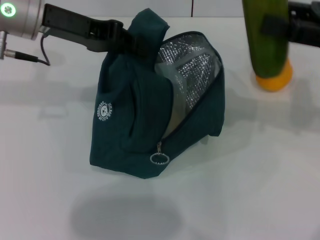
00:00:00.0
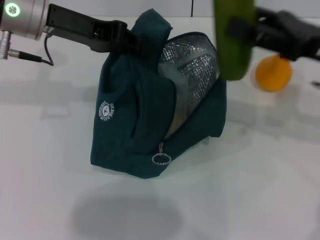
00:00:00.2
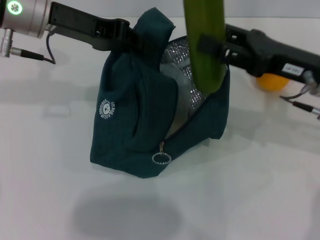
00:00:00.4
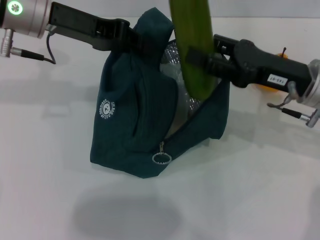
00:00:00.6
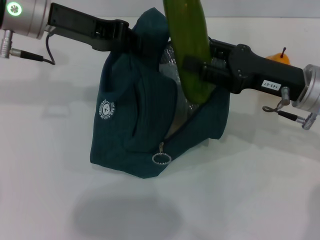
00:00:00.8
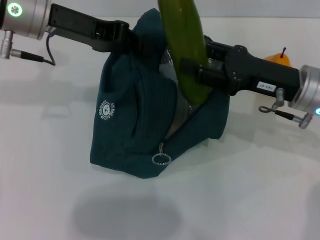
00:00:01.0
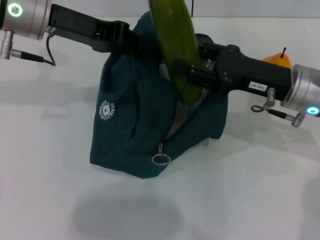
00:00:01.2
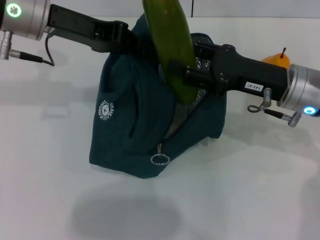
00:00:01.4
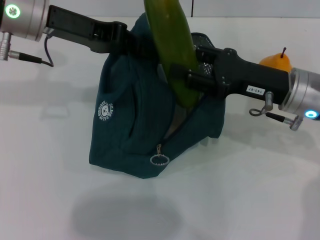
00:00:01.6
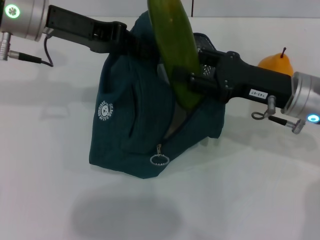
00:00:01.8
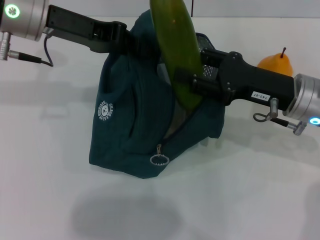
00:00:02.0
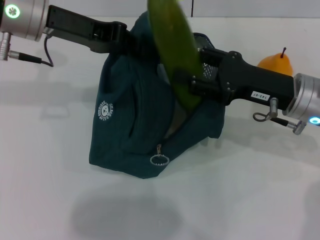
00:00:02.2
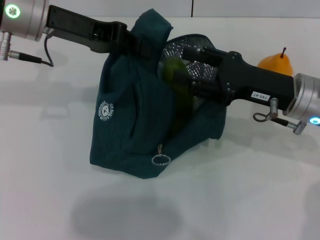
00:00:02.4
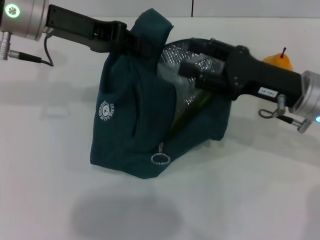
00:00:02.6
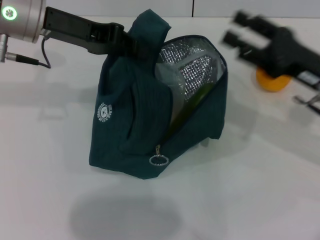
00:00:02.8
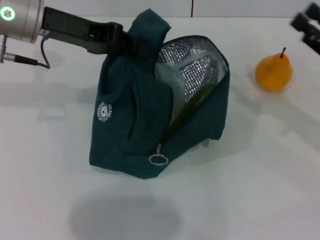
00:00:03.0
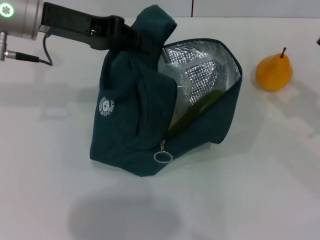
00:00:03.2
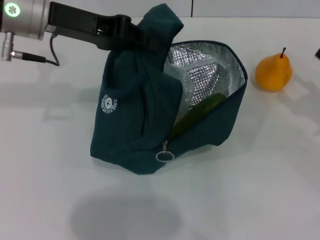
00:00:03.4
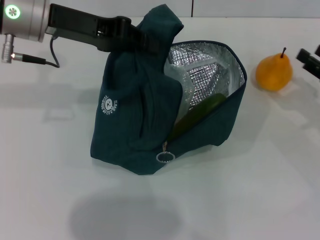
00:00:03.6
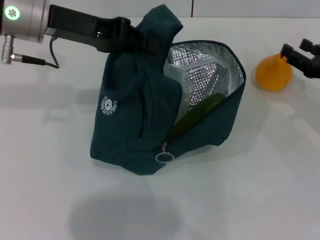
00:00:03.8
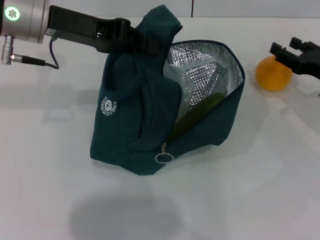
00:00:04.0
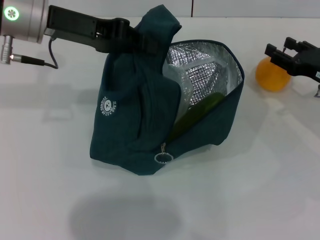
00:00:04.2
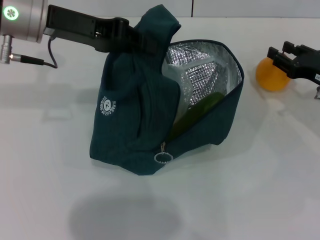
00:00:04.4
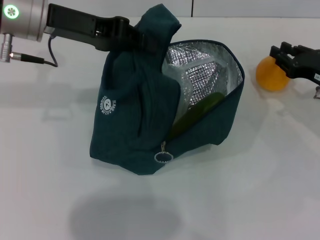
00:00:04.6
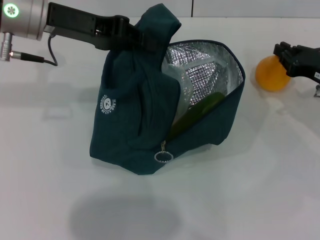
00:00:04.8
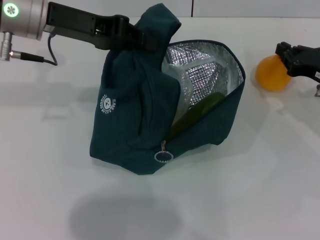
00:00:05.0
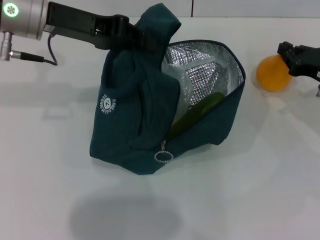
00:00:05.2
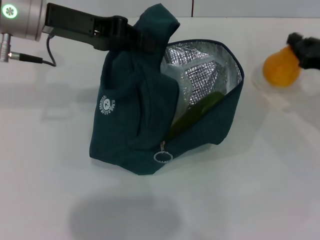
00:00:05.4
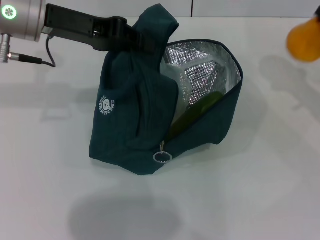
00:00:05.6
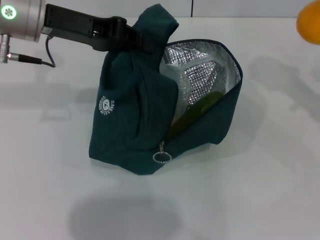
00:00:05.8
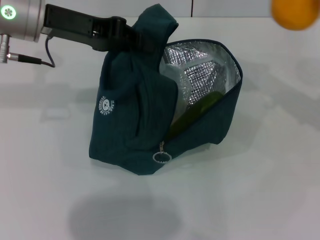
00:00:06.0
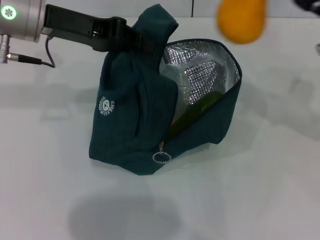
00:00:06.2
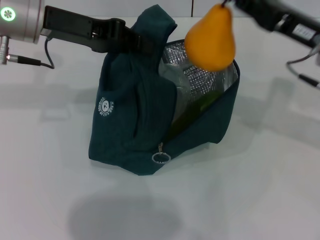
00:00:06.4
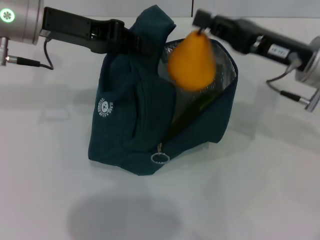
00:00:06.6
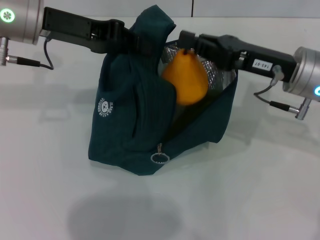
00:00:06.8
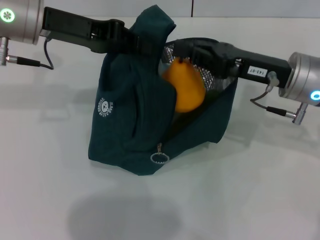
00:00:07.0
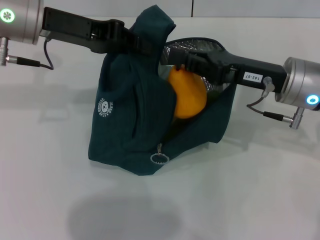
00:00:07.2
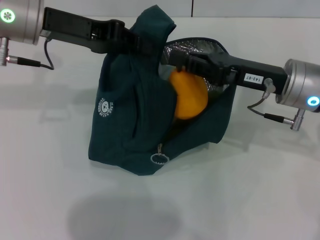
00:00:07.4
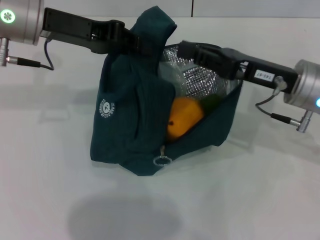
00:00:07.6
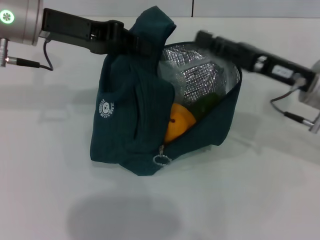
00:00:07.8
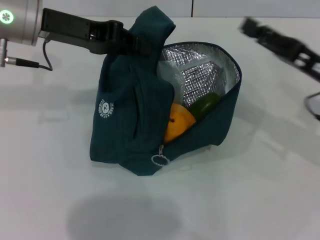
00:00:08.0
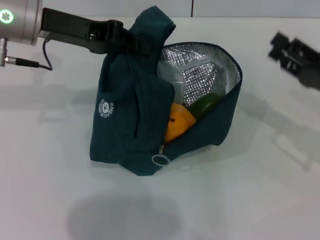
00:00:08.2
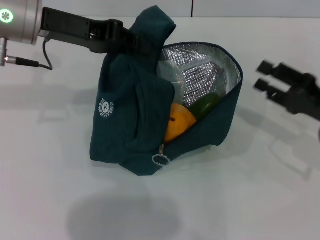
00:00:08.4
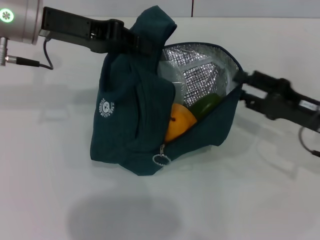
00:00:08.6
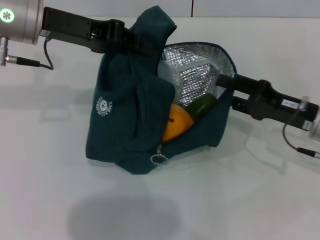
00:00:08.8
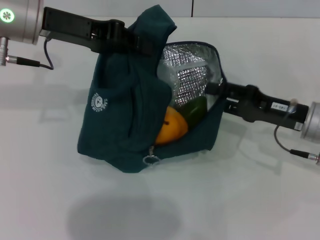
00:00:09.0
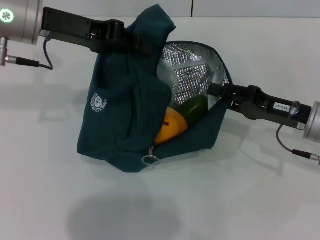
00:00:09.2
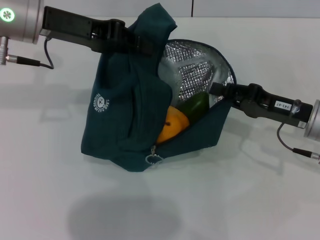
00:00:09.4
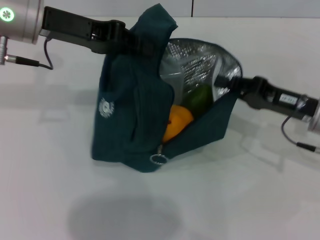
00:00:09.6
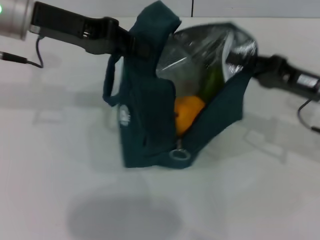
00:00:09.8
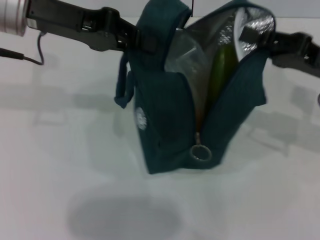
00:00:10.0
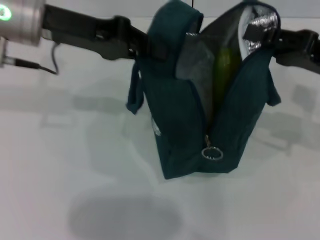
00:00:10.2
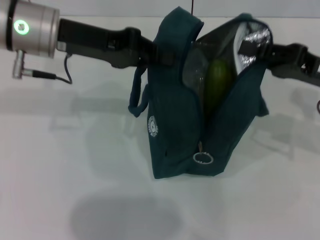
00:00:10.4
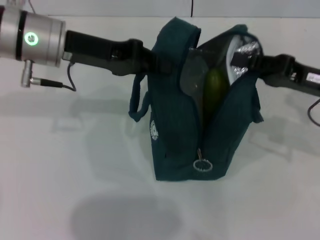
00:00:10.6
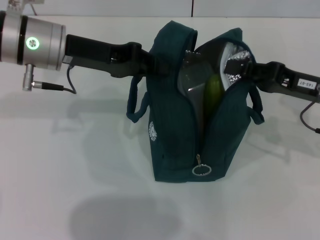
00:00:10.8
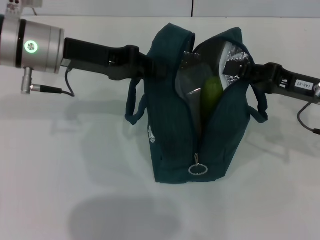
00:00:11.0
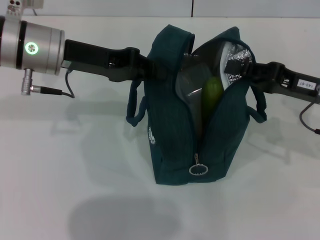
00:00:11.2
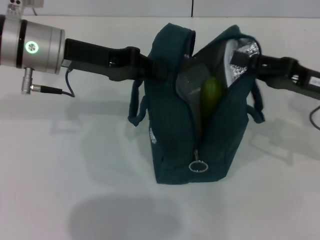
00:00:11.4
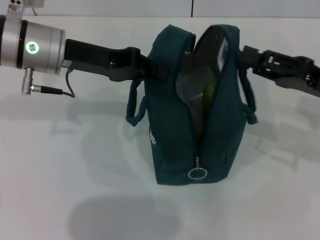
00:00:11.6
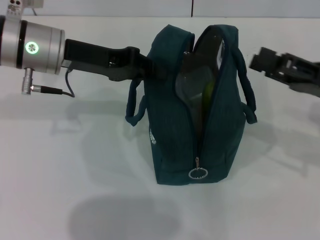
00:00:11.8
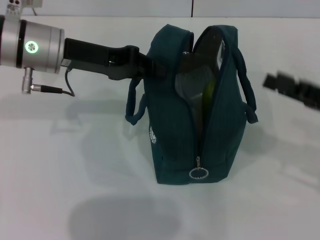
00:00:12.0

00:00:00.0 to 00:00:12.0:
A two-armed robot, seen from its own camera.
Step, 00:00:00.0 to 00:00:02.4: Put the cucumber into the lunch bag with your right hand.
Step, 00:00:02.8 to 00:00:04.8: Grab the pear with your right hand.
Step, 00:00:08.0 to 00:00:11.4: Hold the lunch bag with your right hand.
00:00:00.0 to 00:00:01.6: The right gripper heads to the left and downward, covering about 15 cm.
00:00:01.6 to 00:00:03.0: The right gripper heads to the right, covering about 10 cm.
00:00:03.0 to 00:00:04.4: The right gripper shifts roughly 5 cm forward.
00:00:04.4 to 00:00:06.0: The right gripper shifts approximately 10 cm upward, and closes its fingers.
00:00:06.0 to 00:00:07.6: The right gripper moves to the left, approximately 10 cm.
00:00:07.6 to 00:00:09.0: The right gripper moves downward, some 5 cm, and opens up.
00:00:09.0 to 00:00:10.4: The right gripper is displaced upward by roughly 5 cm, and closes up.
00:00:10.4 to 00:00:12.0: The right gripper heads backward, covering some 5 cm, and opens.

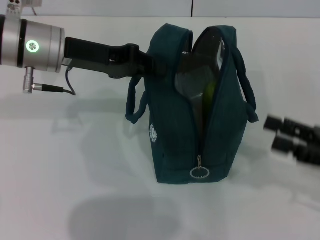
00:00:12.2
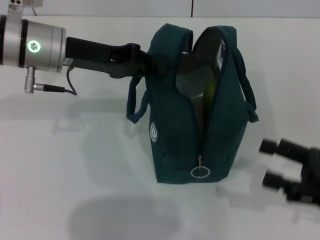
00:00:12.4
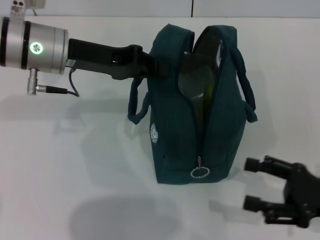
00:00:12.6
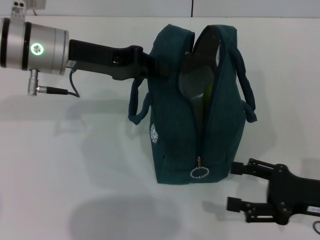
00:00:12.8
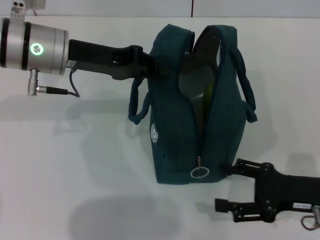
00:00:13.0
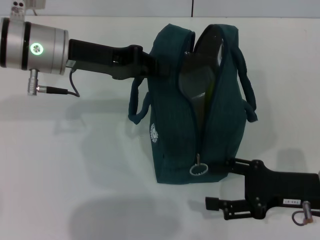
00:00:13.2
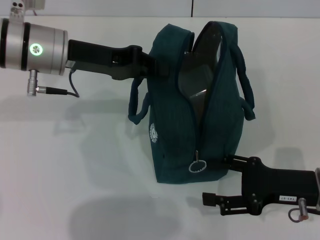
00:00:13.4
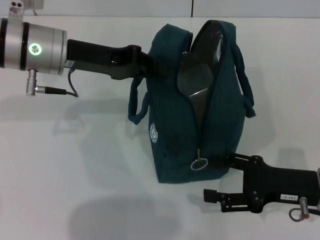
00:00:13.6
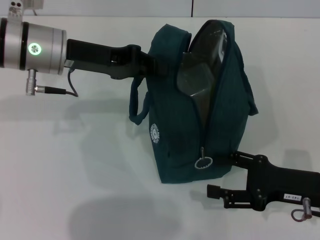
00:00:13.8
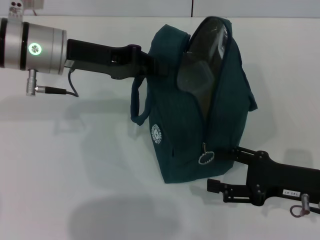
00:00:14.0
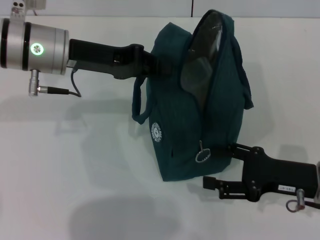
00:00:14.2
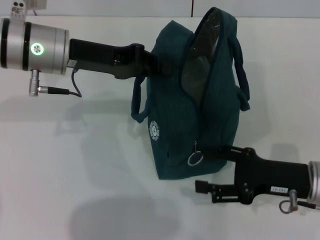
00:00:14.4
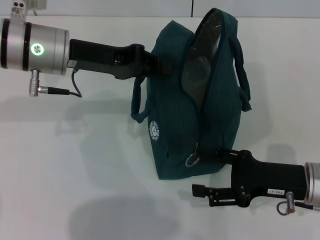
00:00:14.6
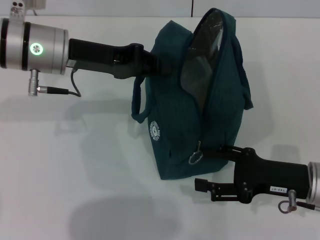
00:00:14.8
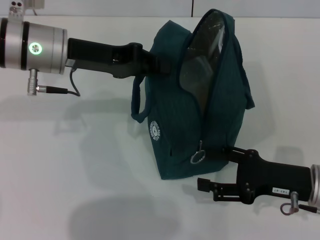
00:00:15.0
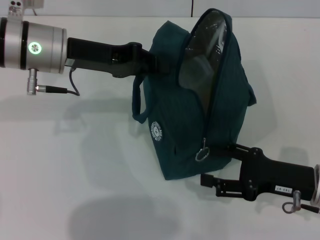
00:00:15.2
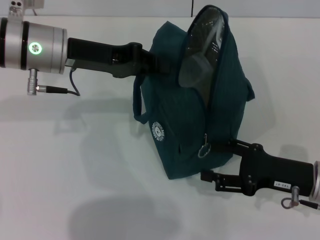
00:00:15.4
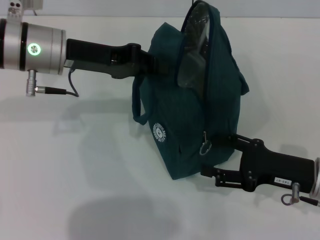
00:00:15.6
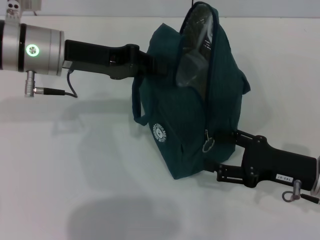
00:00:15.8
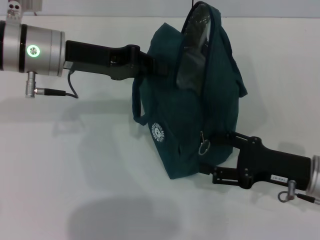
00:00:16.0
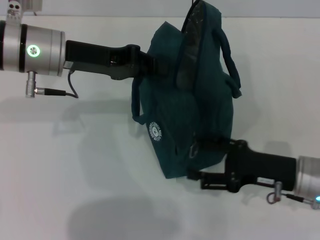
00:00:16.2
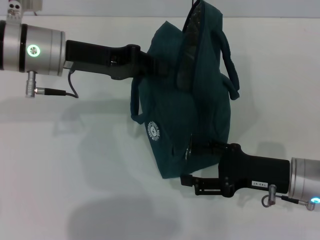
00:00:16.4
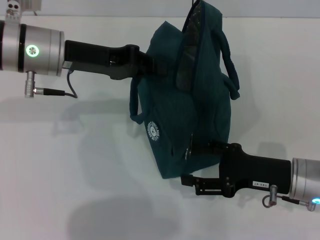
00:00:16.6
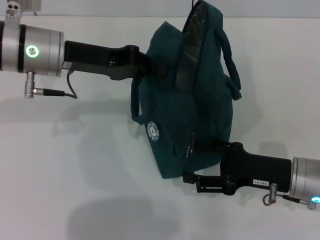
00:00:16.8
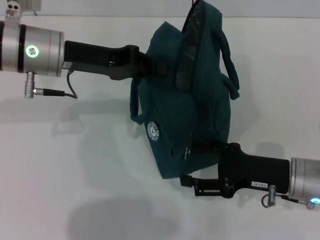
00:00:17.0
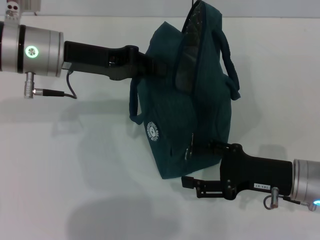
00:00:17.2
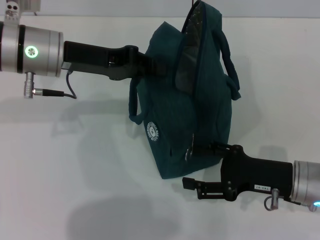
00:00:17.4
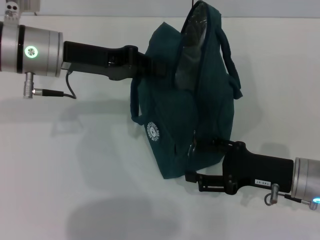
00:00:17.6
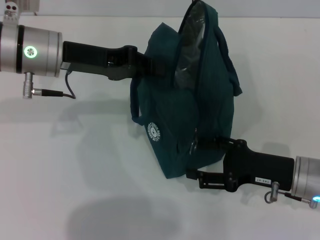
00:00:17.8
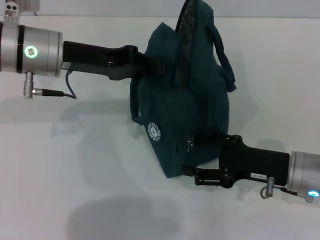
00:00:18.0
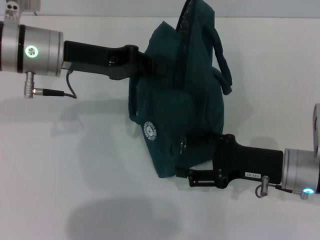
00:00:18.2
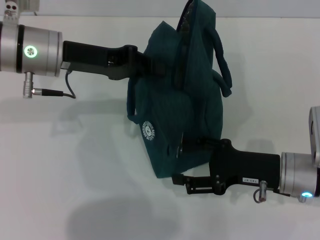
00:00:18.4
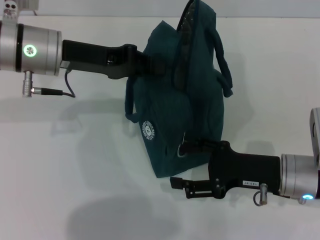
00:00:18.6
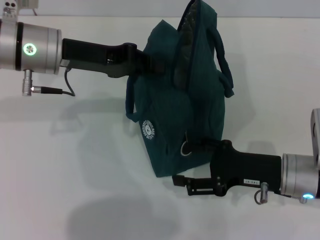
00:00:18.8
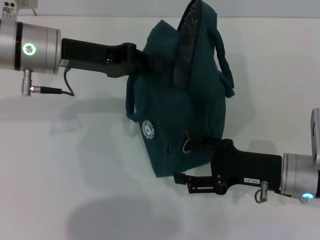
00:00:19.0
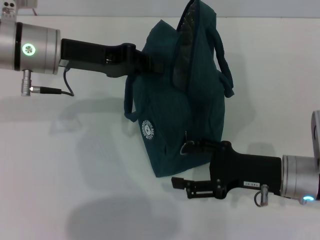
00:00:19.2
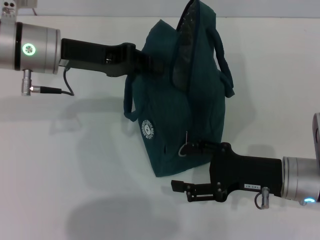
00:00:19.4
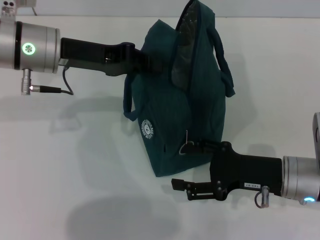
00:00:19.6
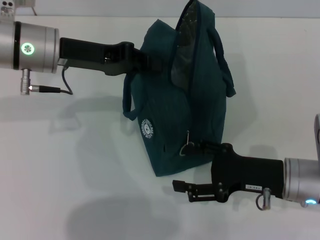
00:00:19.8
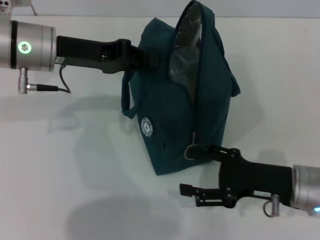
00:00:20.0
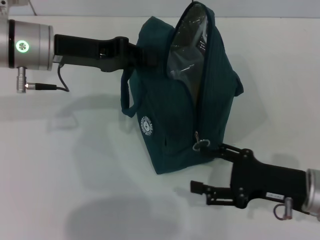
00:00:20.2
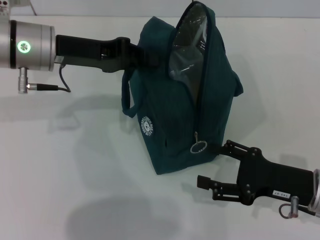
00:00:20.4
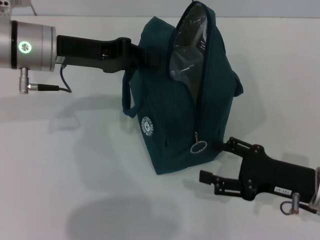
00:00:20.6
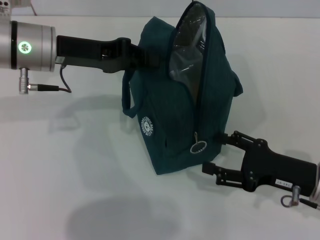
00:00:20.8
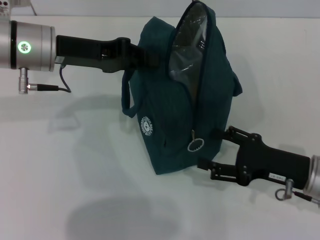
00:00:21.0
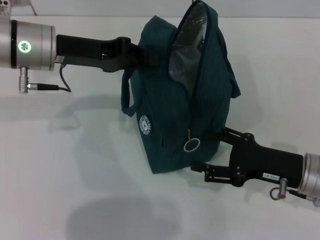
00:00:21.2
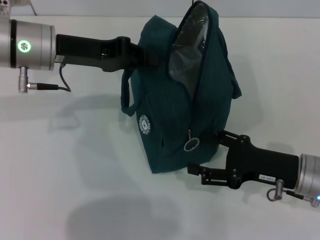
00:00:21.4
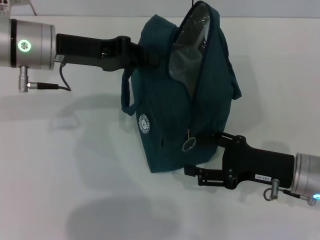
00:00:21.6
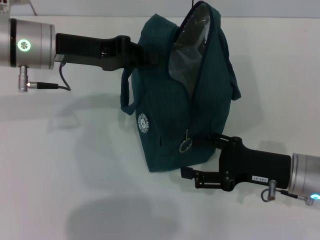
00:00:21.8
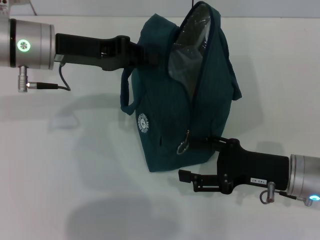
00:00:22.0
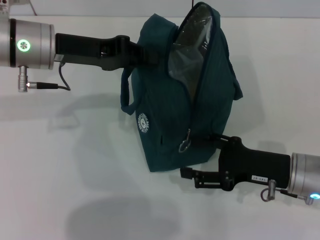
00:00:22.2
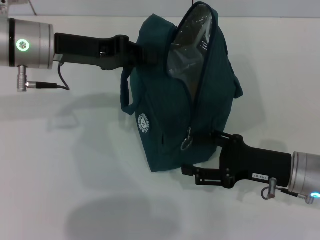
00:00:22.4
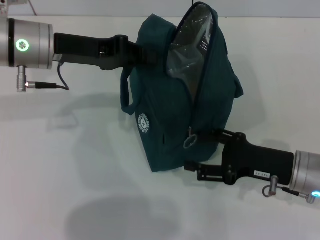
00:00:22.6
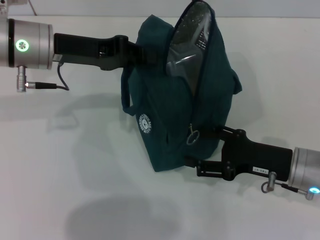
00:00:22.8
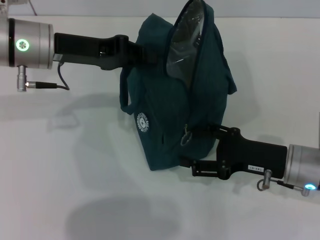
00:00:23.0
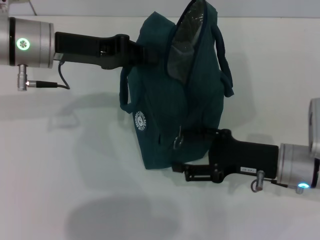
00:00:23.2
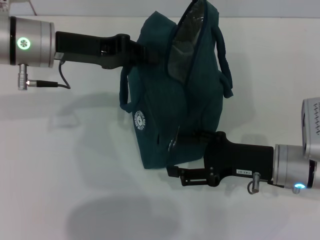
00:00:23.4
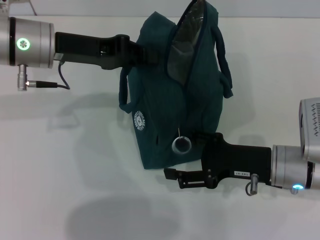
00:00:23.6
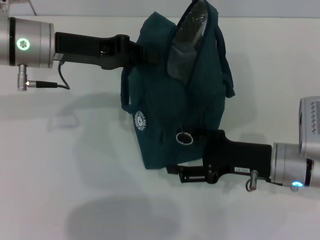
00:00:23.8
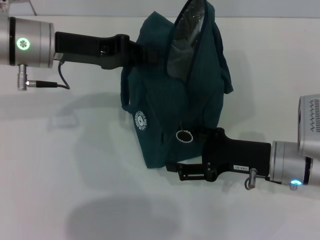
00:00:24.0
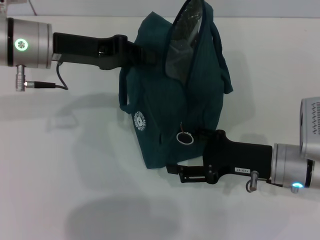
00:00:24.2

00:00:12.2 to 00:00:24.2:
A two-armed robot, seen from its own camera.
00:00:12.2 to 00:00:13.8: The right gripper moves to the left and downward, about 10 cm.
00:00:13.8 to 00:00:22.6: The grippers move only a little.
00:00:22.6 to 00:00:24.2: The grippers stay close to where they were, moving slightly.
